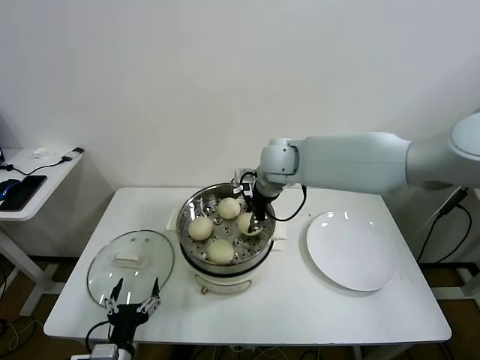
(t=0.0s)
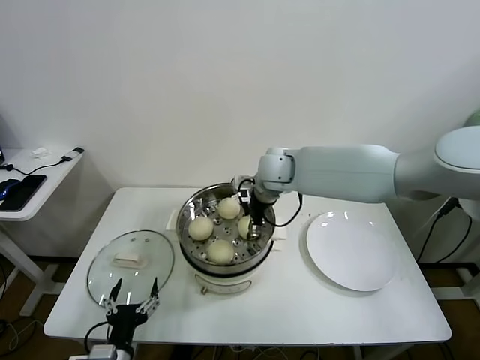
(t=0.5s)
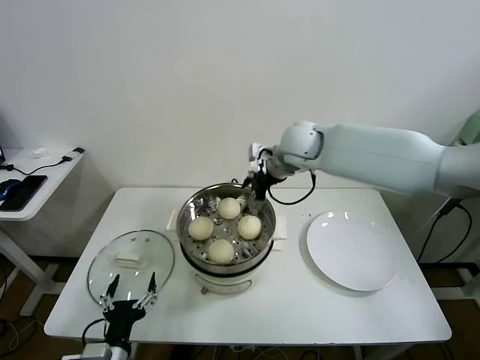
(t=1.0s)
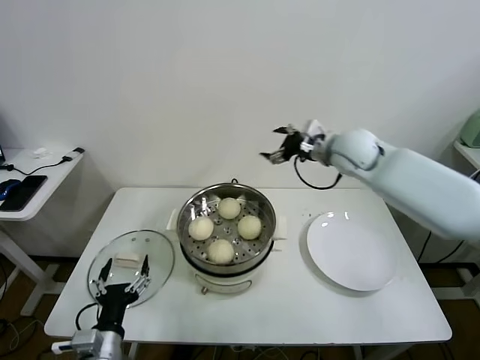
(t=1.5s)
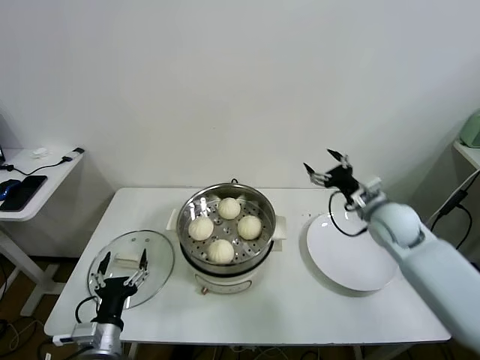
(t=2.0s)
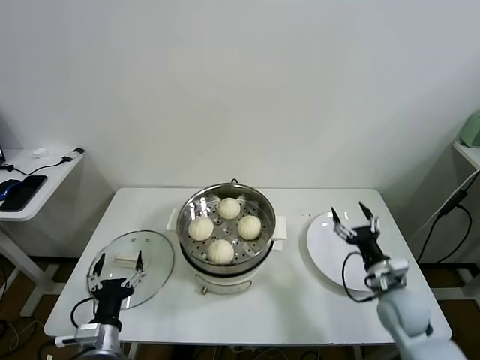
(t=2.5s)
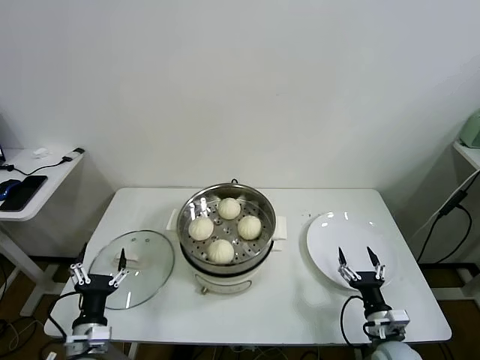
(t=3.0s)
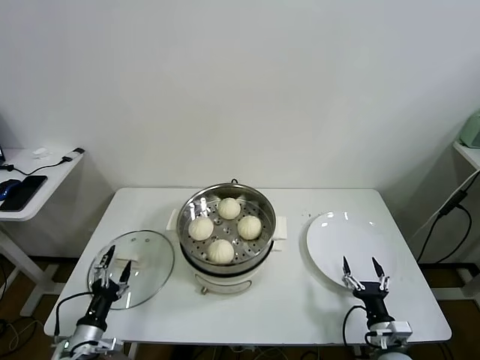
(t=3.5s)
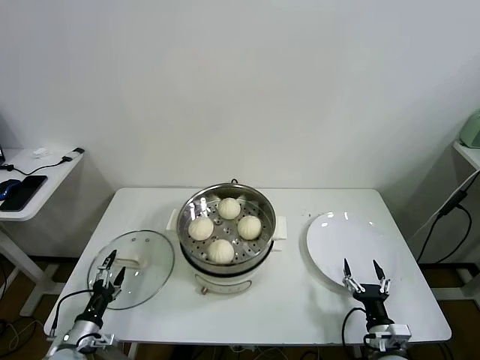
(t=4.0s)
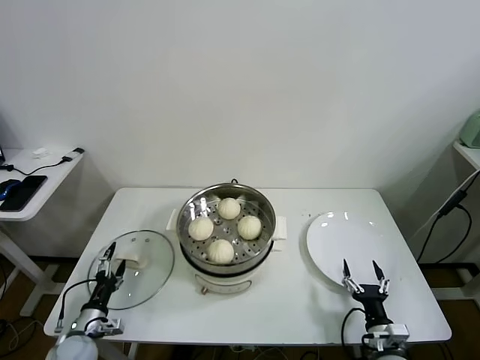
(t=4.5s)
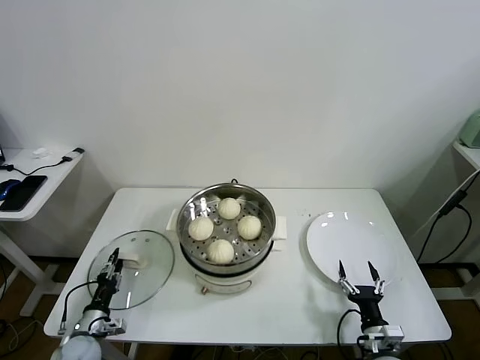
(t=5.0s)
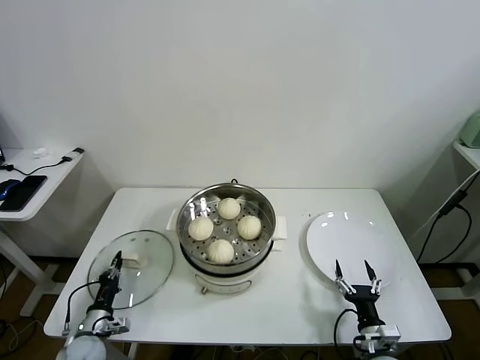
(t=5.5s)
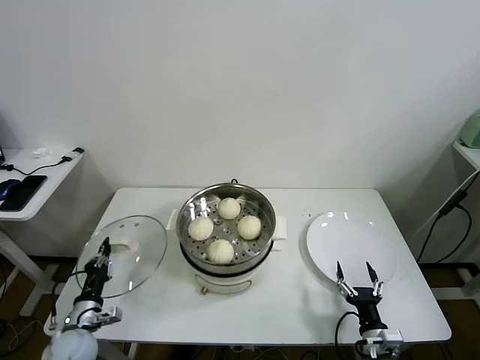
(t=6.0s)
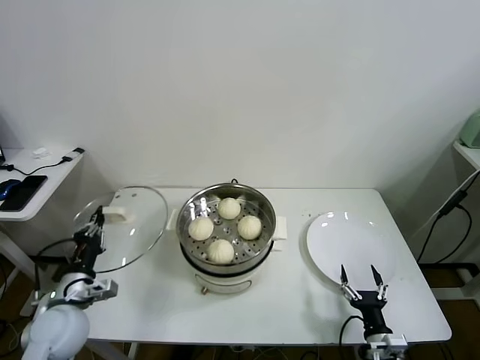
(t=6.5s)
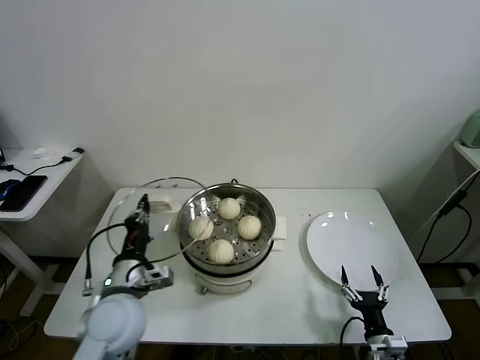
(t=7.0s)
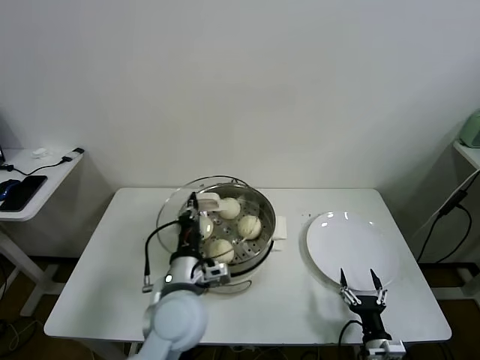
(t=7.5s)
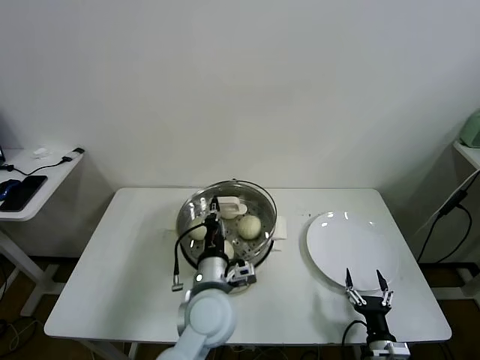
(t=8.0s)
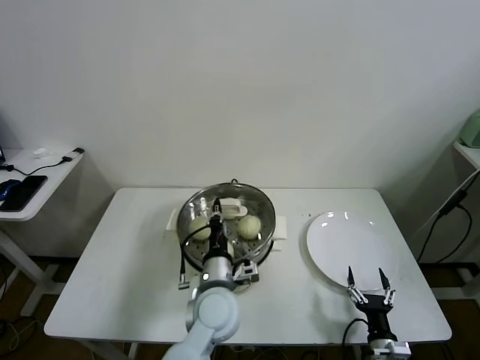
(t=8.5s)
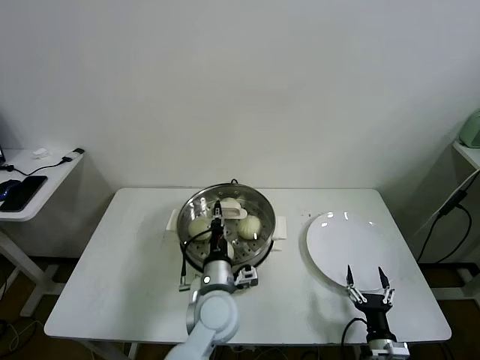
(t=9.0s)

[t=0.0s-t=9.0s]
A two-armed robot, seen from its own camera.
Task of the whole recording: take steamed baozi put them in steamer.
Step, t=1.0s to t=5.0s: Grasp the pot lid with left gripper.
t=0.0s to t=2.0s: The right gripper moves to the right and downward, some 25 cm, and opens up.
t=2.0s to t=4.5s: The right gripper is displaced downward and backward by some 35 cm. Meanwhile the left gripper goes about 20 cm downward, to the left and forward.
t=4.5s to t=7.0s: The left gripper goes some 25 cm upward and to the right, and closes.
t=7.0s to t=9.0s: The left gripper travels to the right by approximately 20 cm.

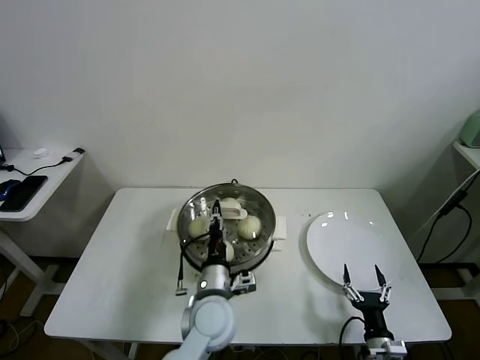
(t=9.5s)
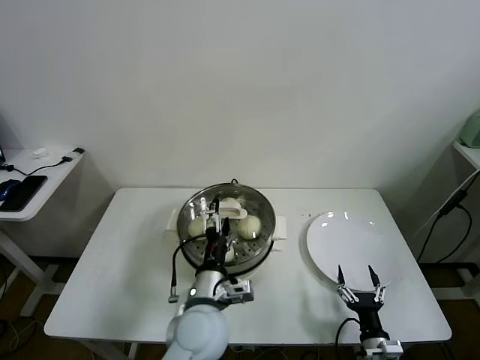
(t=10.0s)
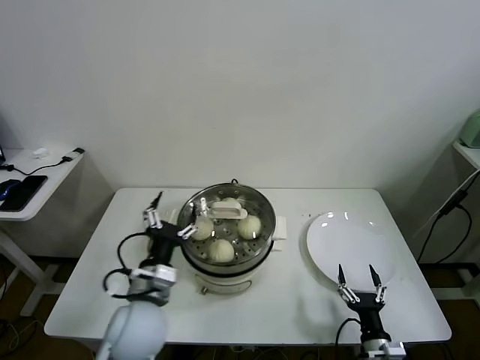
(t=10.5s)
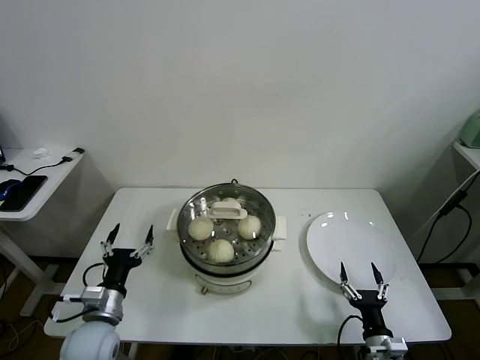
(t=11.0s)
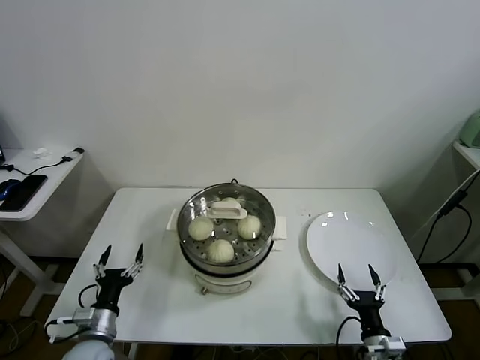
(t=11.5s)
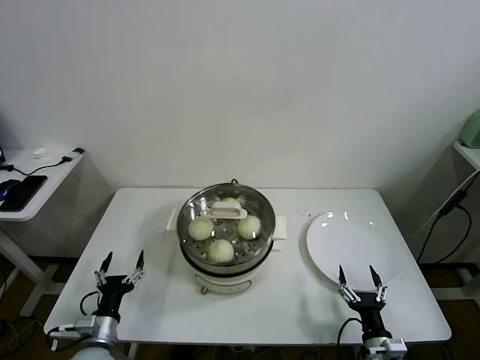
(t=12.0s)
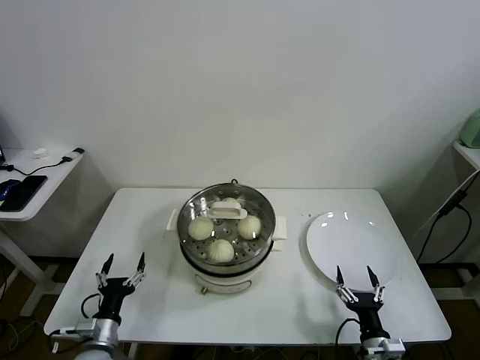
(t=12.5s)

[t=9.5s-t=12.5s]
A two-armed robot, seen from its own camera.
Task of the whole recording: take steamed baozi put them in steamer.
t=9.5s to t=11.0s: The left gripper is displaced to the left by some 25 cm, and opens up.
t=11.0s to t=12.5s: The left gripper is displaced downward by roughly 10 cm.
